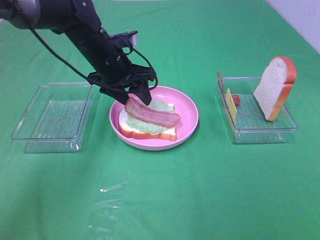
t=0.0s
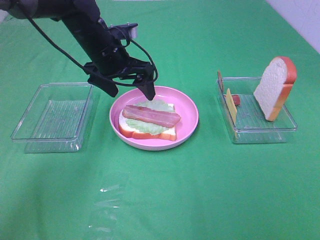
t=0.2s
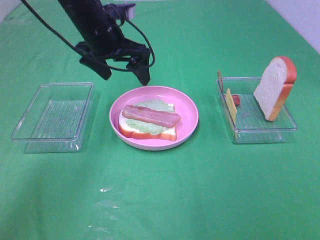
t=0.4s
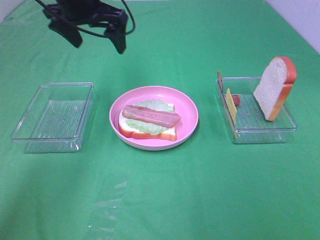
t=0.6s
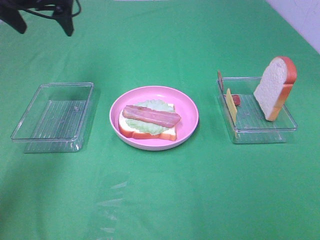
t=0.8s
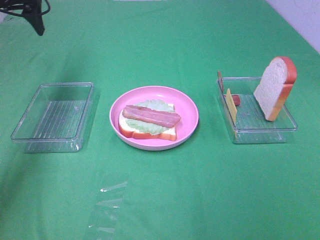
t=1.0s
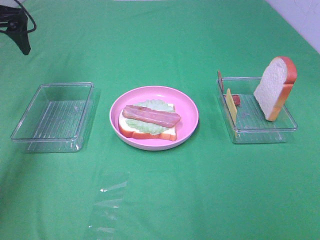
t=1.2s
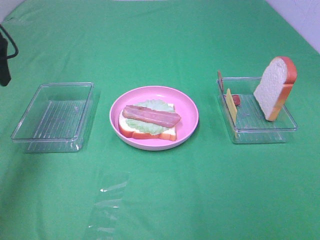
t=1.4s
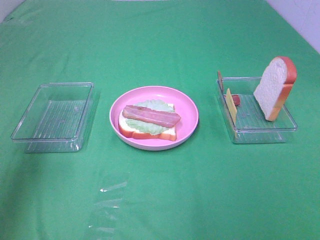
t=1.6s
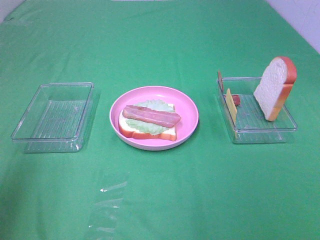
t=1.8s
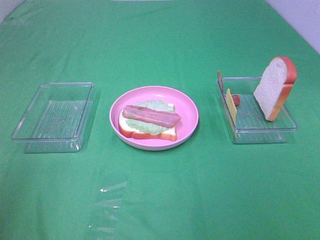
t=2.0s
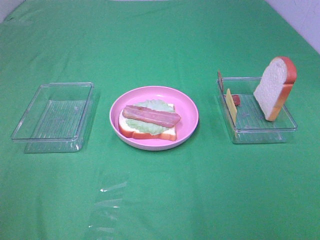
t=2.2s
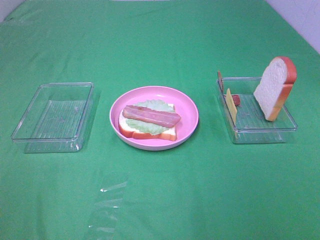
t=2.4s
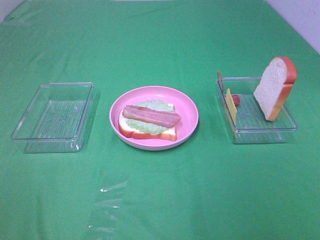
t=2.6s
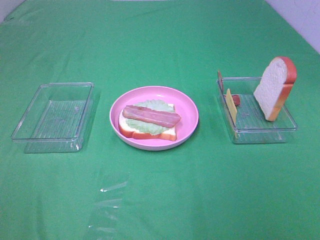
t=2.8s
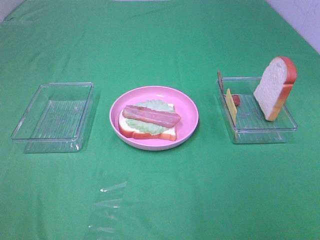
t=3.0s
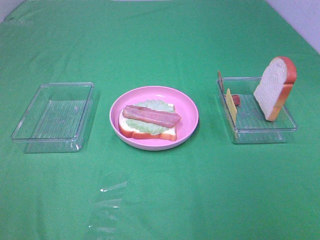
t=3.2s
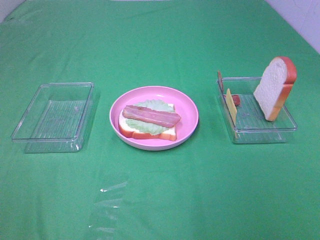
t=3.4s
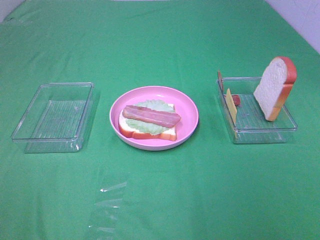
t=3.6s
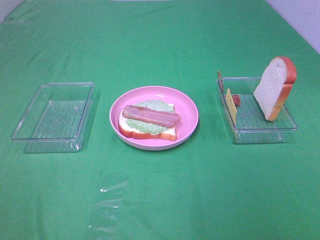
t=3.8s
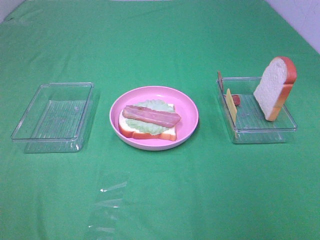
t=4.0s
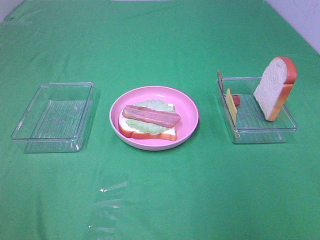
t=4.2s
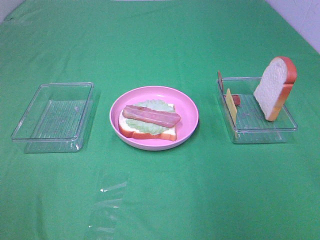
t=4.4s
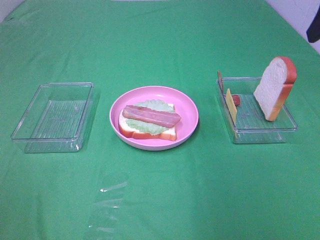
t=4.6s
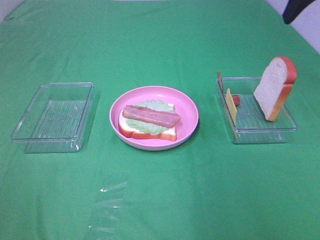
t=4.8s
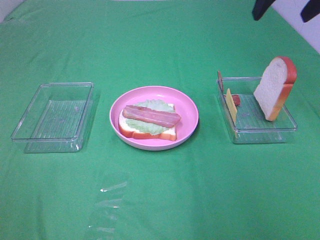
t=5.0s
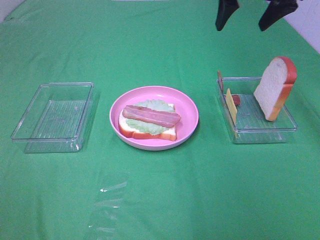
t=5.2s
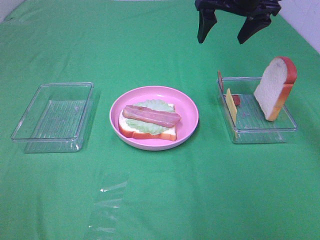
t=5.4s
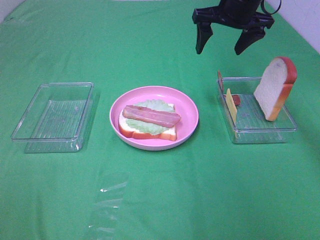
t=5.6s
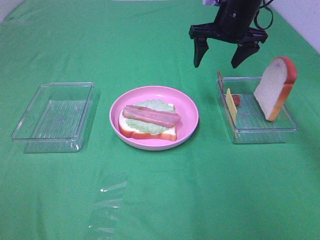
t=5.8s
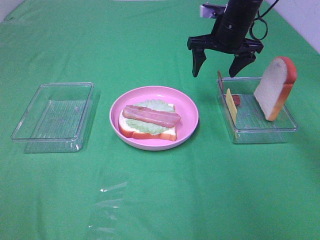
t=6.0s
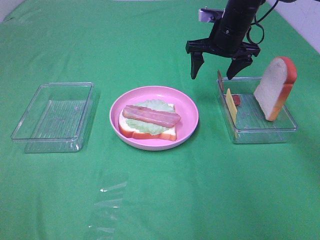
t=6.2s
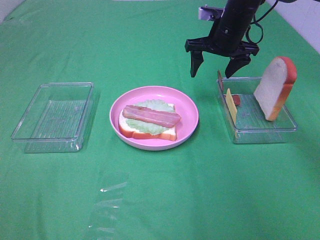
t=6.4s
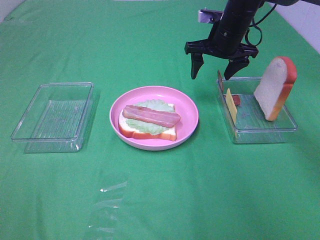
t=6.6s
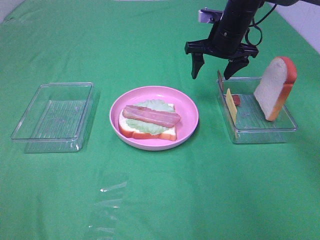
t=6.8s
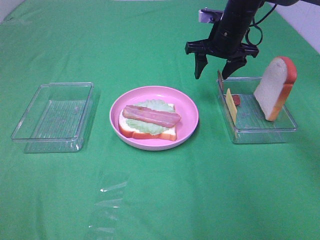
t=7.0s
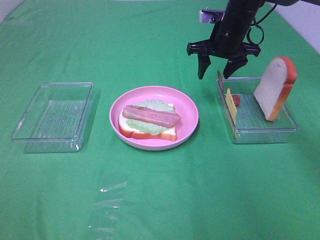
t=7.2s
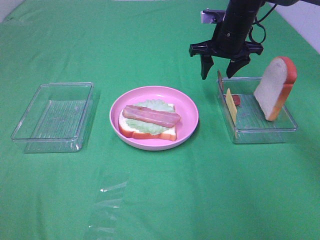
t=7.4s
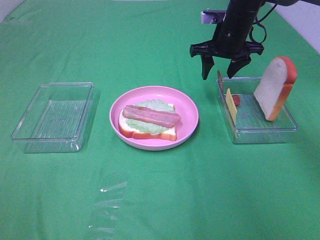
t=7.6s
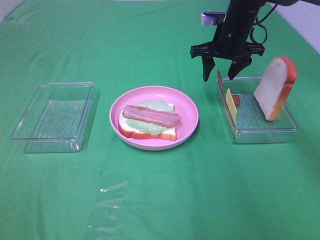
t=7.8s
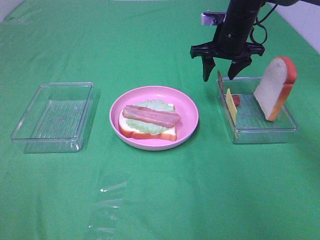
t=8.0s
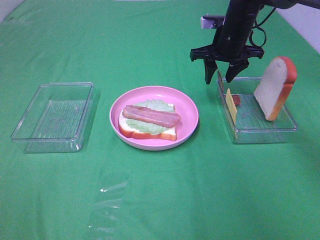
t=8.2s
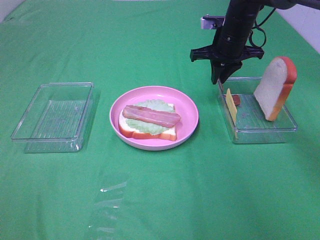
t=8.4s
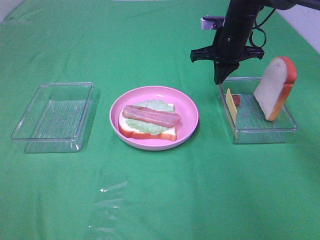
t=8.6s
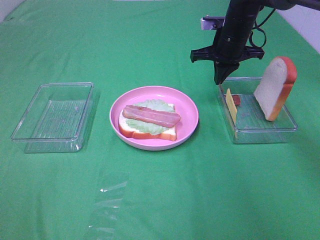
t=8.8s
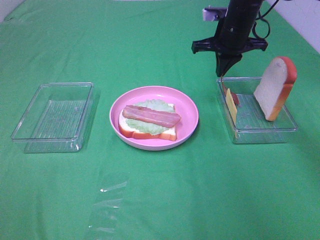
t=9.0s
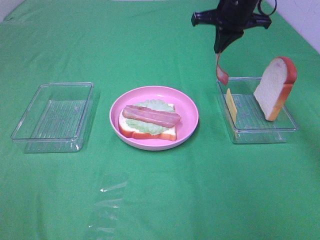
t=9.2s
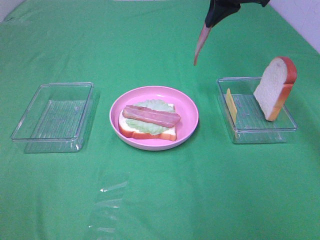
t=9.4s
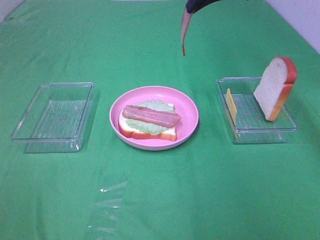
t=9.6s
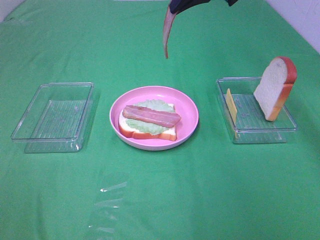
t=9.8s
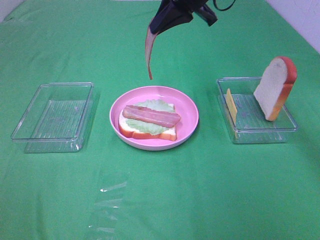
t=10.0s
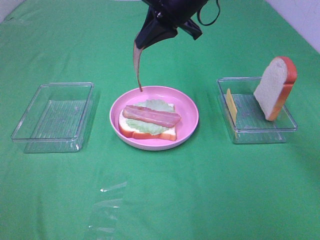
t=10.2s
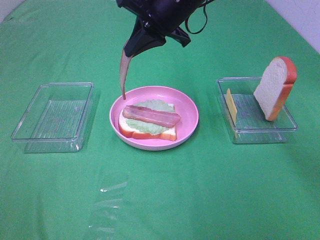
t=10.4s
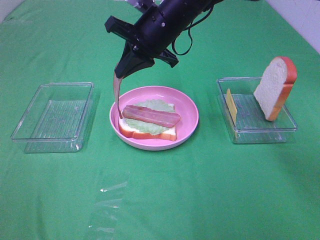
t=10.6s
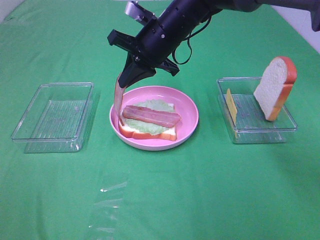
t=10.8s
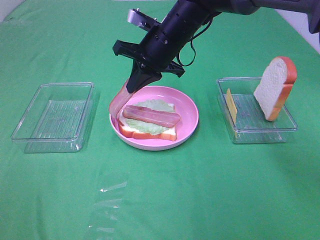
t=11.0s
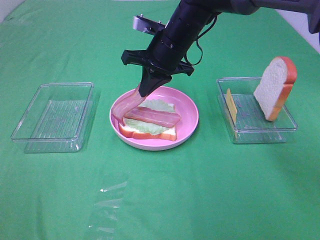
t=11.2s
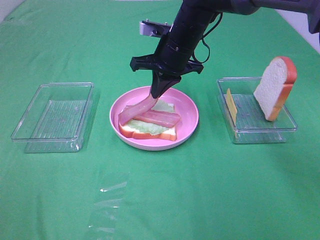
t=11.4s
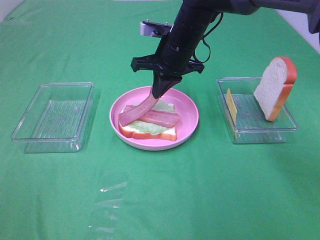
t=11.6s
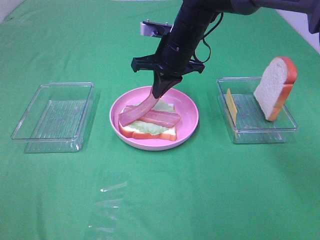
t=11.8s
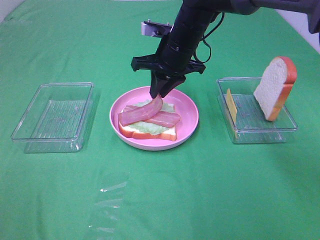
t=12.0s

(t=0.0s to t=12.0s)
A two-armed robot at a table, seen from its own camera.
Task of the whole recording: Make sandwiches.
Step, t=0.2s - t=8.8s: Right hand:grab the bacon.
t=0.0s - t=1.6s: The left gripper shifts about 30 cm to the left, backward and upward.
t=1.6s - t=3.0s: The left gripper is displaced backward by roughly 25 cm.
t=4.4s - t=6.0s: The right gripper shifts about 35 cm forward, downward and to the left.
t=6.0s - t=7.6s: The grippers make only small movements.
t=7.6s - t=9.0s: The right gripper closes.
t=9.0s - t=10.4s: The right gripper shifts some 15 cm to the left, backward and upward.
t=10.4s - t=12.0s: The right gripper moves downward, roughly 10 cm, and opens its fingers.

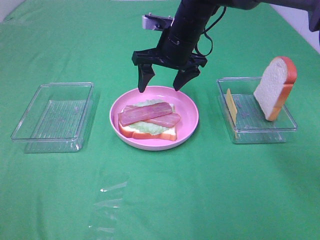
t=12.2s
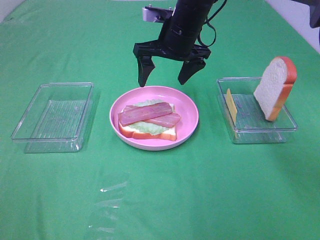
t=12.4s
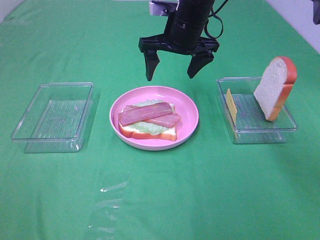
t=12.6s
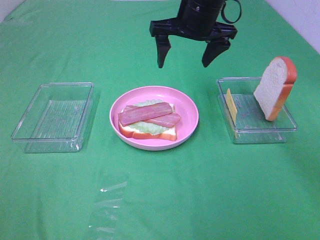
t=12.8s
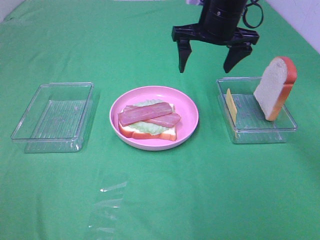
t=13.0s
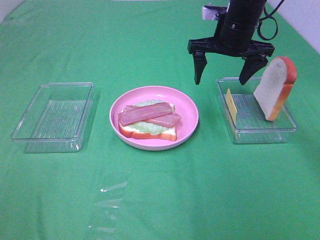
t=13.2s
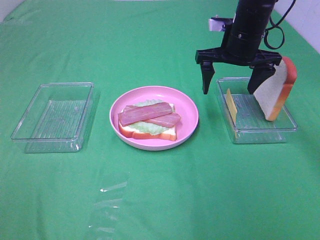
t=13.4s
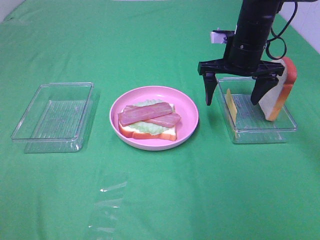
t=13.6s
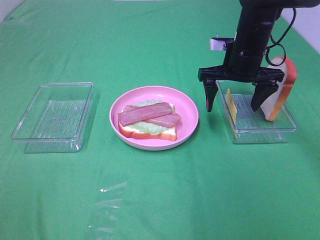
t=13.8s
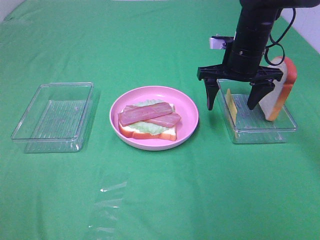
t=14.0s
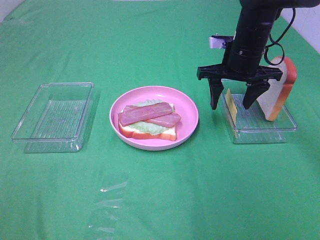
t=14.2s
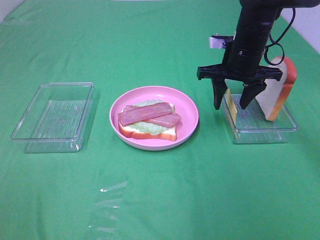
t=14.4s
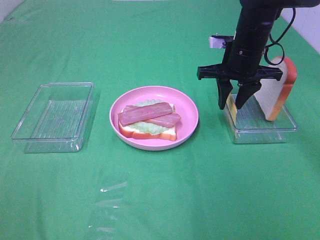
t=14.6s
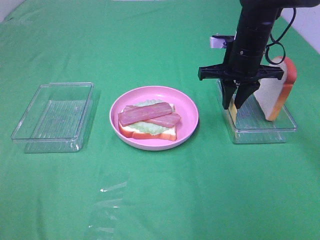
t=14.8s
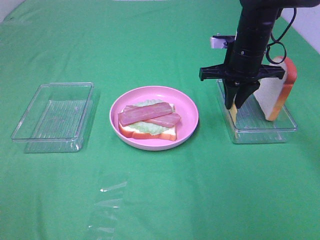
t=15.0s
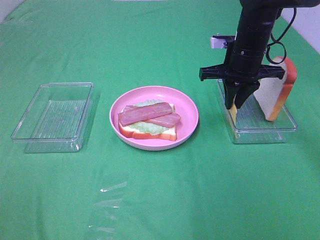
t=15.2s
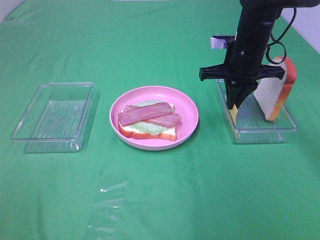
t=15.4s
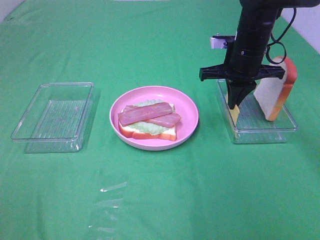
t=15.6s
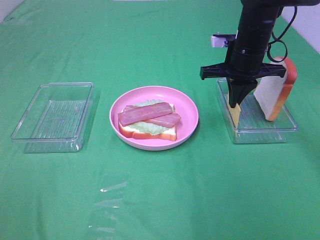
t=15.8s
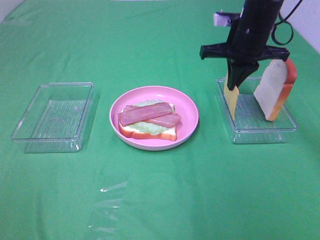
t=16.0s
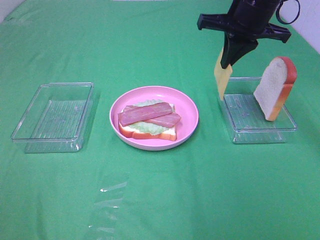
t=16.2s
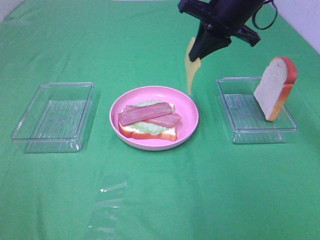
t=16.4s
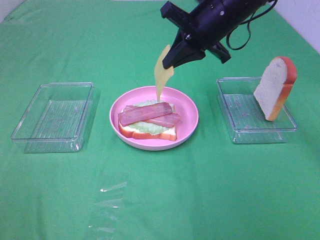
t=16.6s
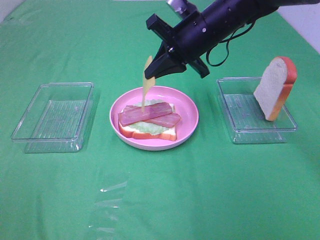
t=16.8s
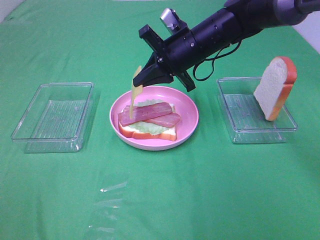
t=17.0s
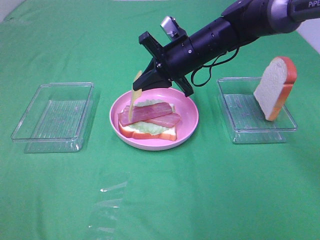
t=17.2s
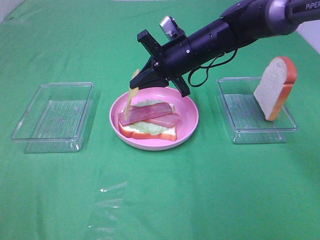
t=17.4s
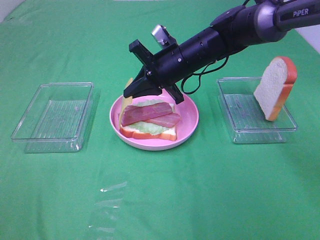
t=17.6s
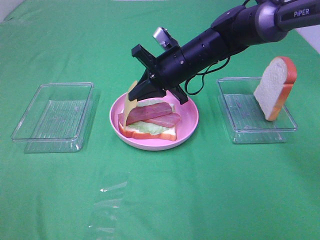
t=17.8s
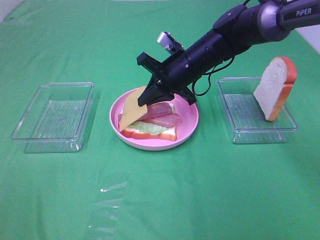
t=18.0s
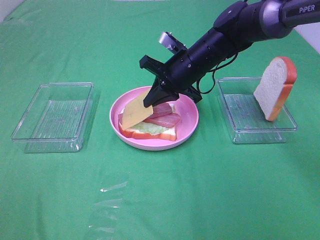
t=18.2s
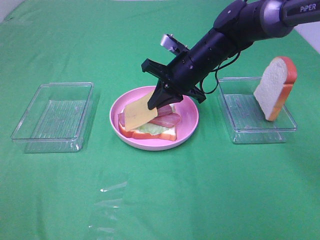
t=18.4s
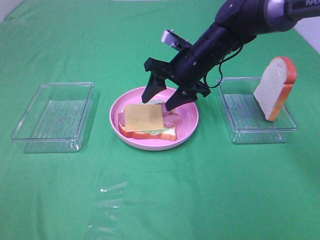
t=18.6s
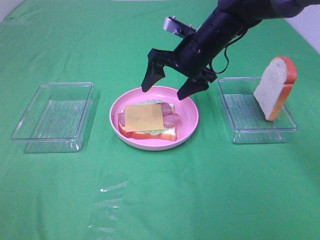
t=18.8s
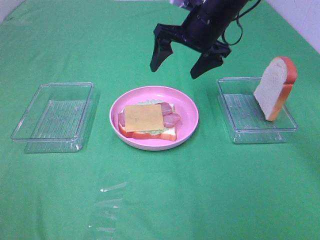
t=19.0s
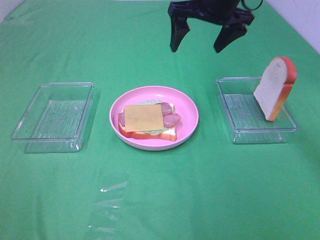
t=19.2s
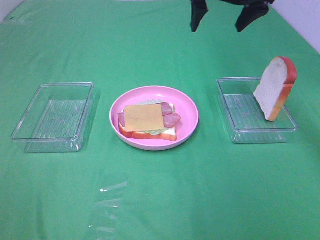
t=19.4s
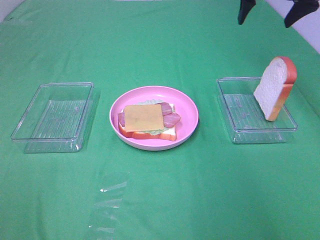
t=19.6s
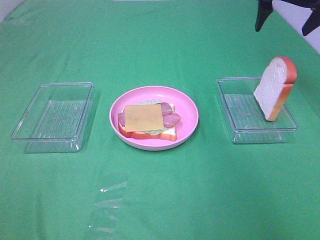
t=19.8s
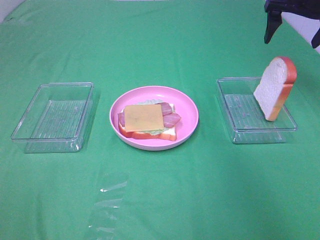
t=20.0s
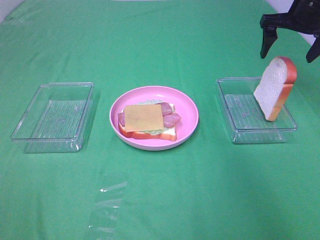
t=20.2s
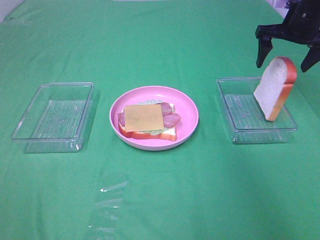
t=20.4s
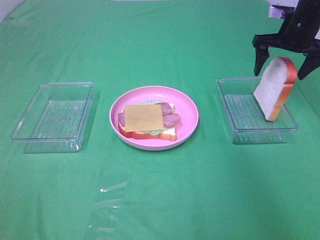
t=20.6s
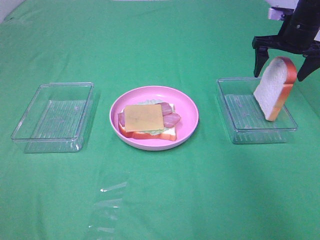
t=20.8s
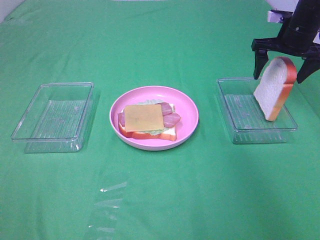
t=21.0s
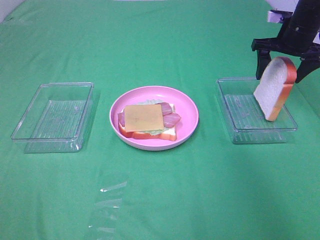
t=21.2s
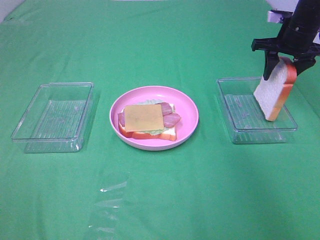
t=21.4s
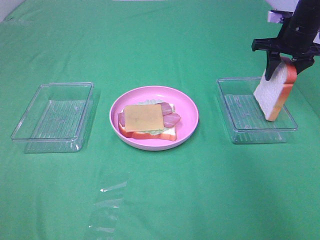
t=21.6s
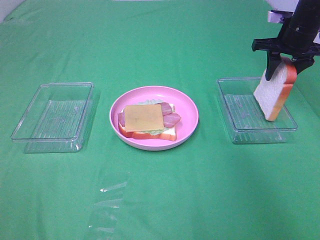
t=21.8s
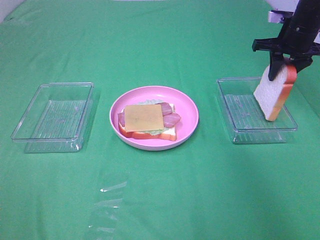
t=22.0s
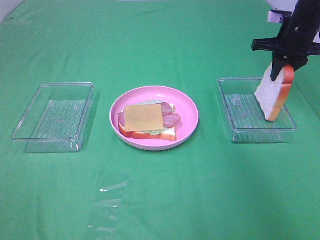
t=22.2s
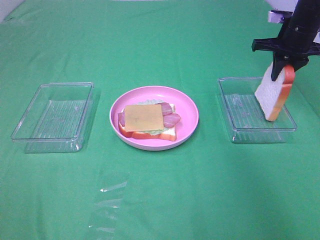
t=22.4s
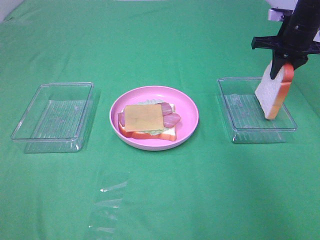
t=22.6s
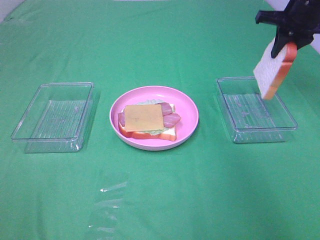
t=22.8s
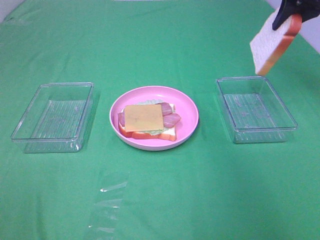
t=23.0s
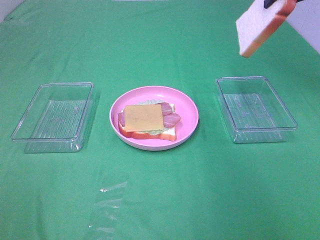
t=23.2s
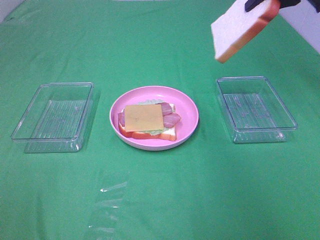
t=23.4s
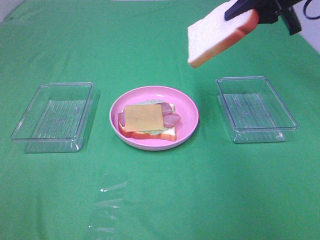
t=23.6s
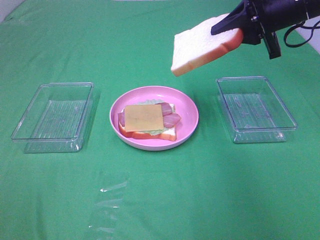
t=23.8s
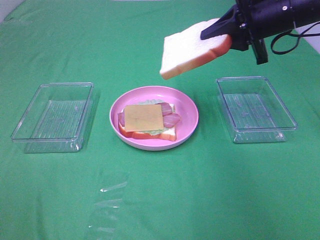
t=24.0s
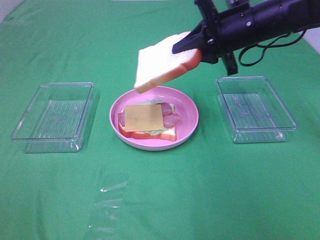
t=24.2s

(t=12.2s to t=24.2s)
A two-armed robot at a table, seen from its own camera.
Task of the whole recording: Make sandwiches.
Step, t=12.2s - t=15.6s: Right hand:grab the cheese slice.
Step, t=15.8s - t=18.6s: Right hand:place the cheese slice on top of the bacon.
Step, t=18.8s - t=22.2s: Right hand:grab the bread slice.
t=12.2s - t=13.8s: The right gripper goes roughly 10 cm to the right.
t=13.8s - t=15.2s: The right gripper closes.
t=15.2s - t=16.6s: The right gripper shifts about 10 cm upward and to the left.
t=16.6s - t=18.2s: The right gripper heads downward, covering about 10 cm.
t=18.2s - t=19.8s: The right gripper shifts approximately 25 cm to the right and upward, and opens its fingers.
t=19.8s - t=21.2s: The right gripper travels downward by approximately 10 cm.
t=21.2s - t=22.6s: The right gripper closes.
t=22.6s - t=24.2s: The right gripper goes approximately 15 cm to the left and backward, and travels upward and back again, roughly 15 cm each way.
